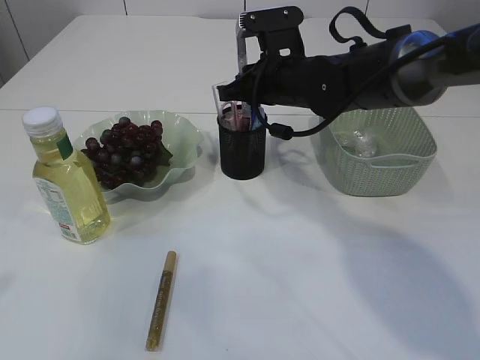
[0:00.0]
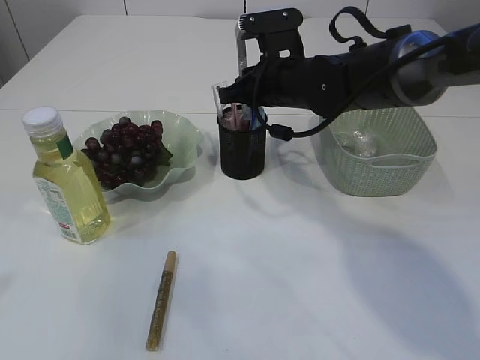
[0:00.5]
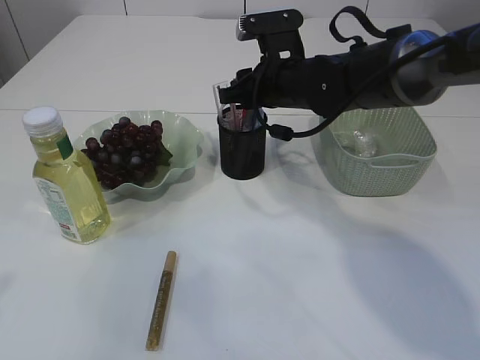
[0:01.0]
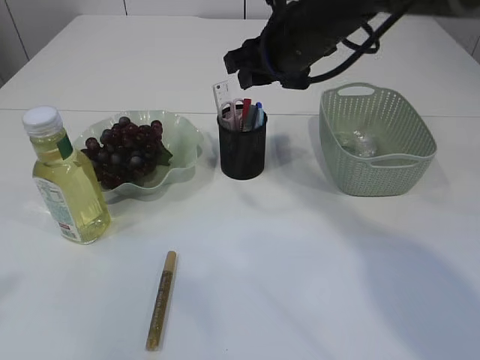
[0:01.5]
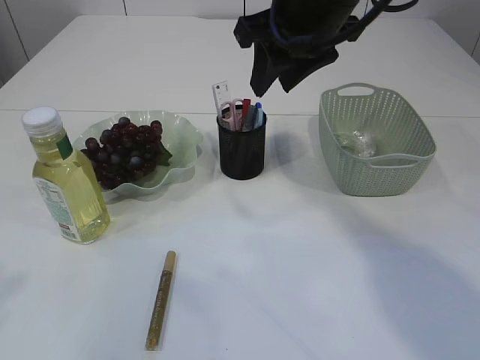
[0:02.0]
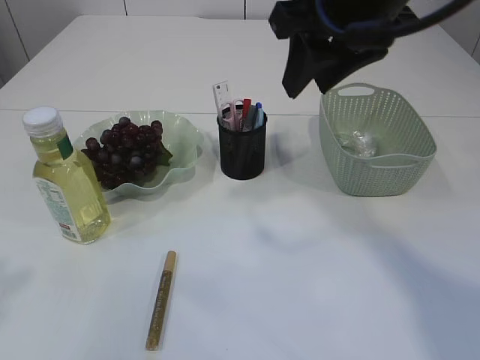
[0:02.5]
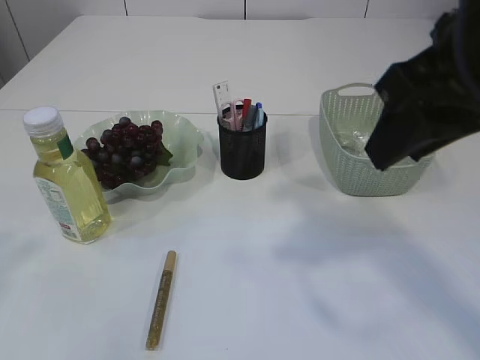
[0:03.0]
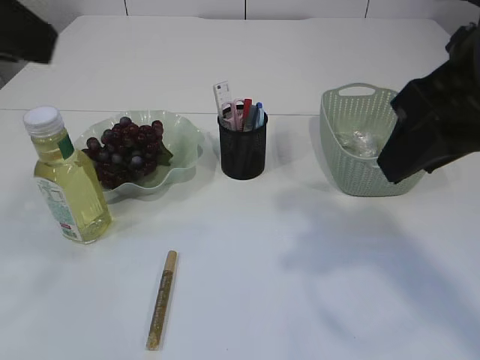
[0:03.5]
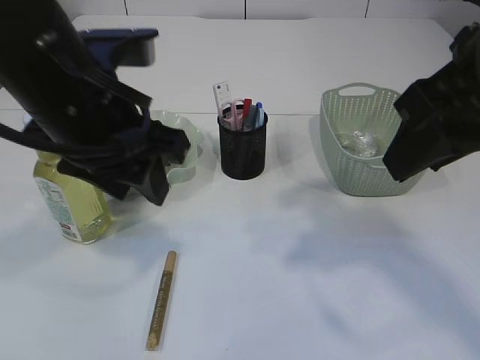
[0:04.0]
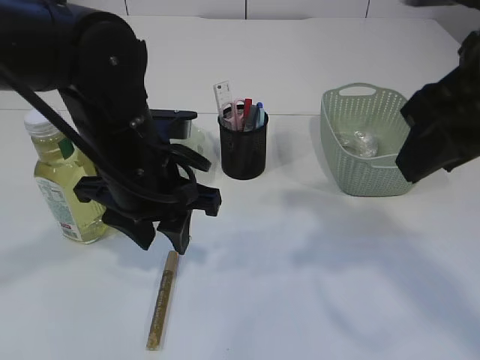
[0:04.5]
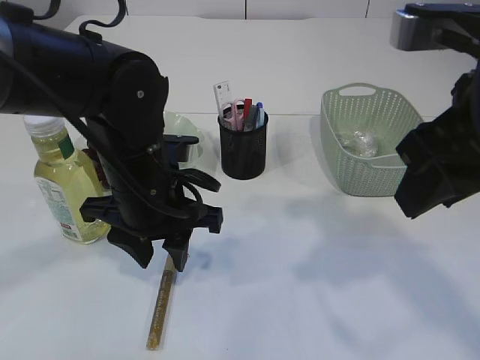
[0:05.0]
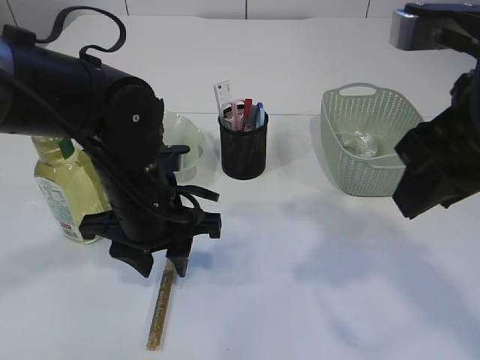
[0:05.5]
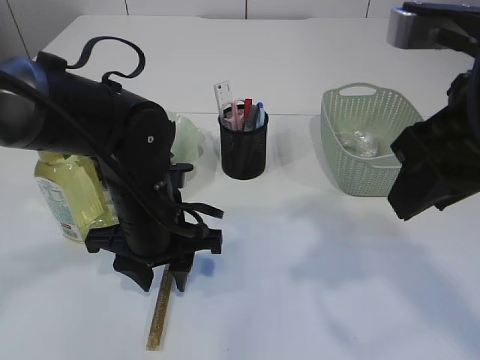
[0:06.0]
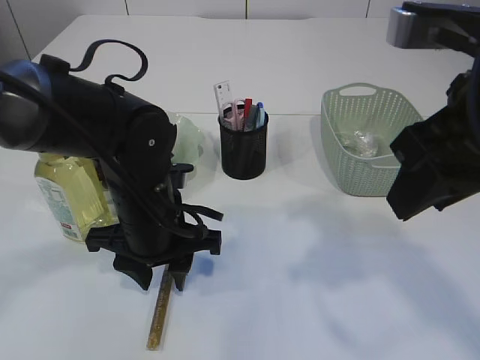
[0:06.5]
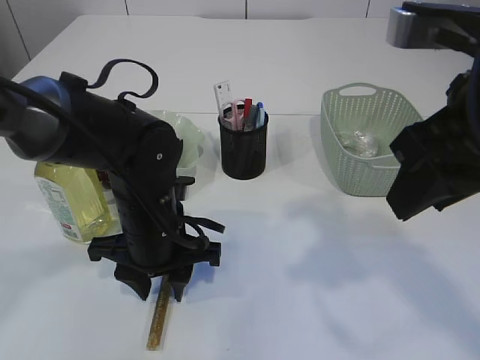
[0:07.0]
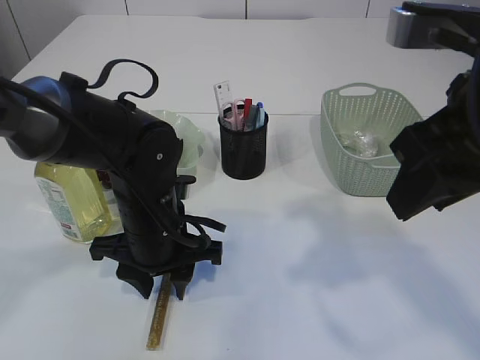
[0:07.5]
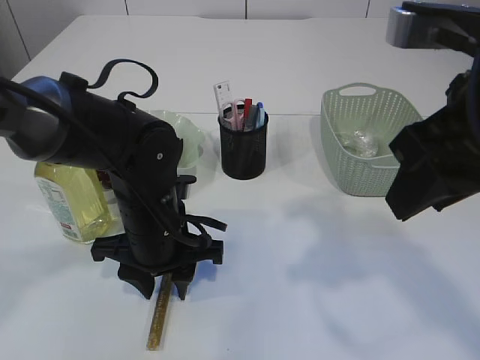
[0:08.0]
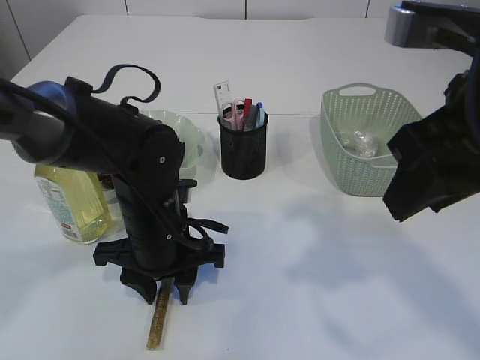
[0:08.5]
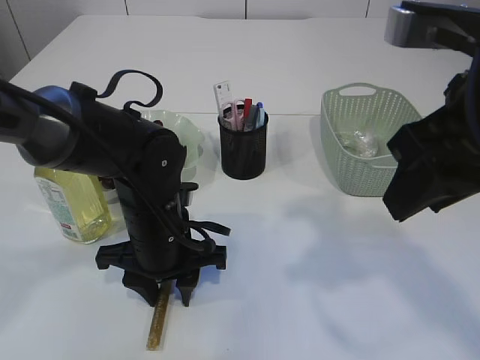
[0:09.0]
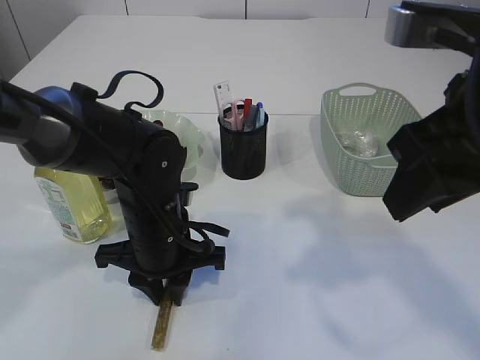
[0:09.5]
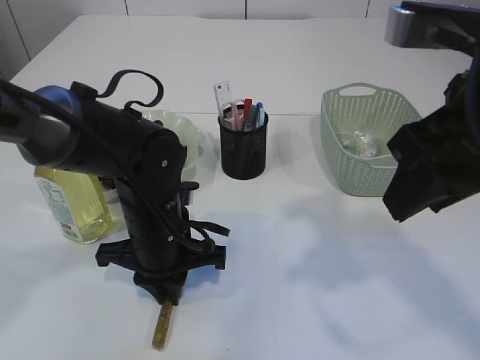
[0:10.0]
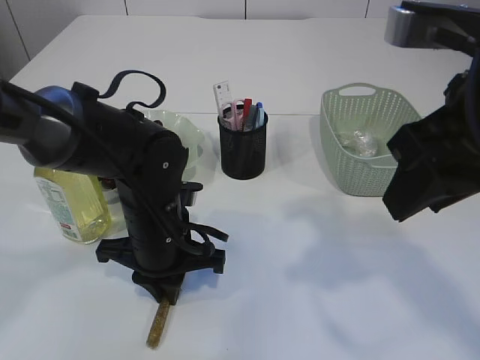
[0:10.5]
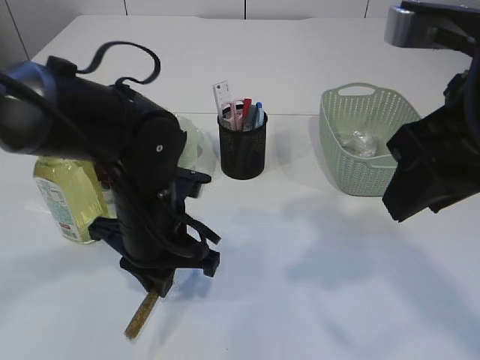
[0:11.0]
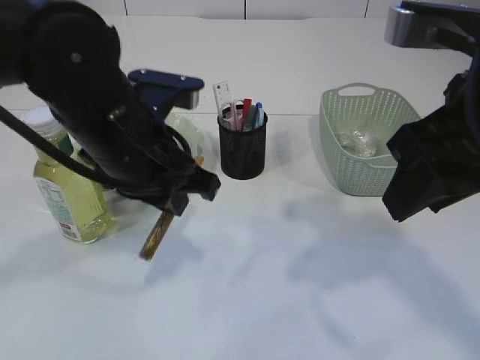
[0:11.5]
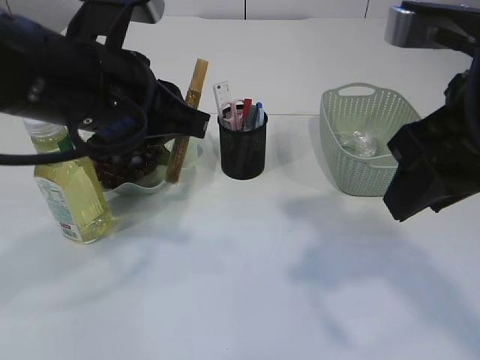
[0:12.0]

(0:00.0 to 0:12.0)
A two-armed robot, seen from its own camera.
Step, 0:01.5 - 0:11.0: pick up the yellow glue.
0:00.0 - 0:02.0: The right gripper heads upward and backward, covering about 15 cm, and opens.
0:02.0 - 0:04.0: The right gripper moves backward and to the right, some 20 cm; the left gripper heads to the right and forward, covering approximately 20 cm.
0:04.0 - 0:06.0: The left gripper shifts approximately 15 cm downward.
0:06.0 - 0:08.0: The grippers make only small movements.
0:08.0 - 0:10.0: The left gripper closes up.
0:10.0 - 0:12.0: The left gripper goes roughly 20 cm upward.

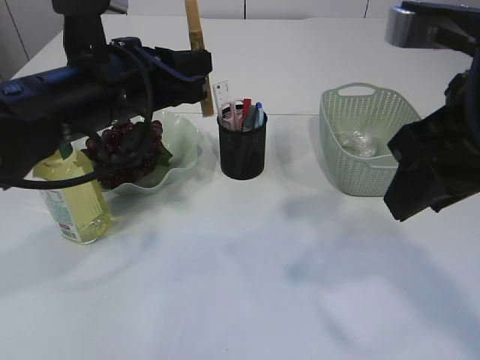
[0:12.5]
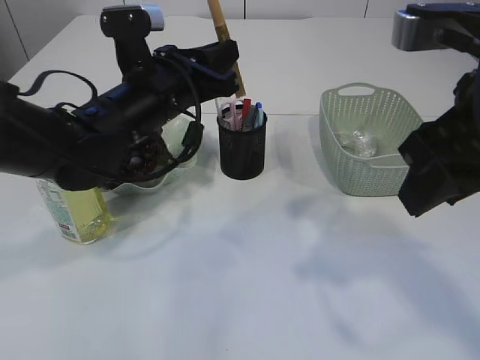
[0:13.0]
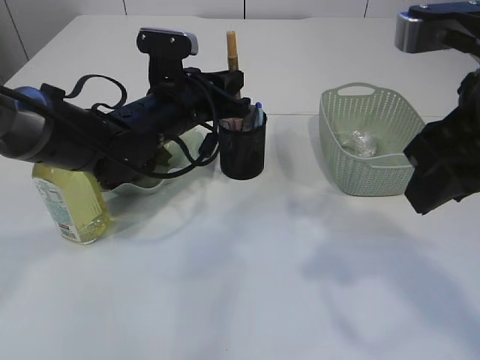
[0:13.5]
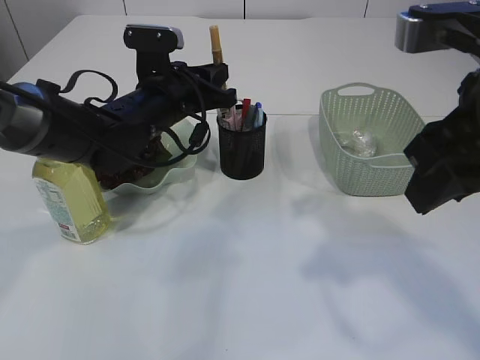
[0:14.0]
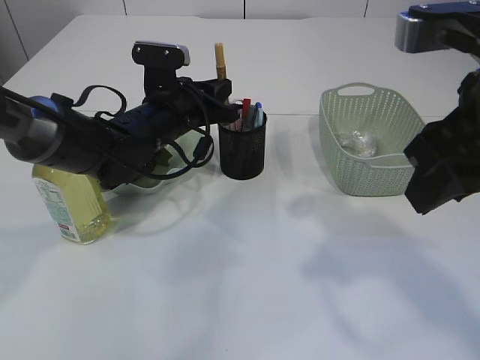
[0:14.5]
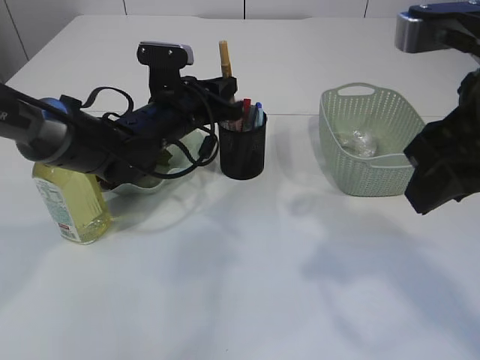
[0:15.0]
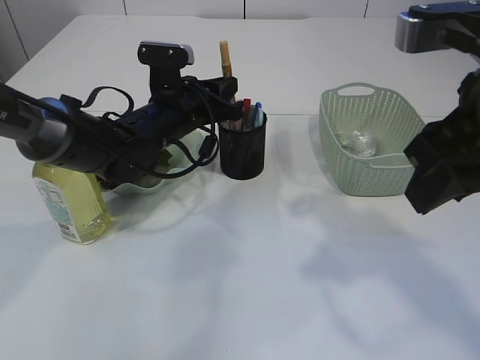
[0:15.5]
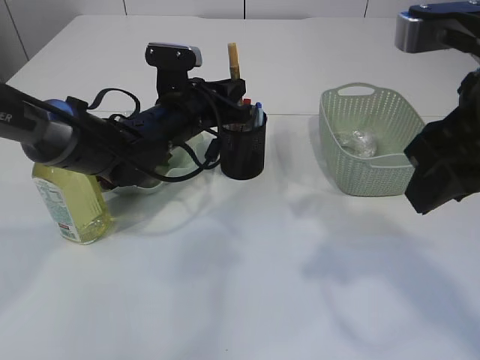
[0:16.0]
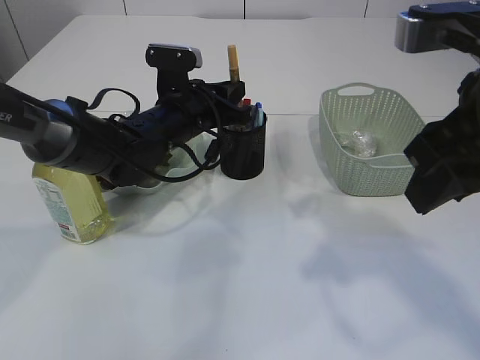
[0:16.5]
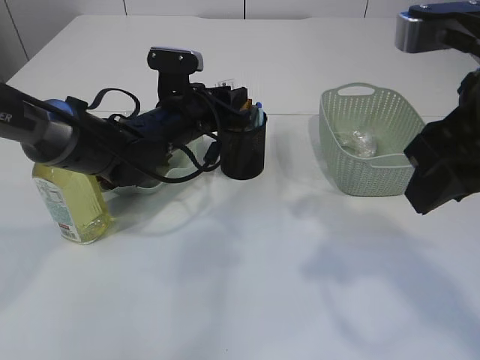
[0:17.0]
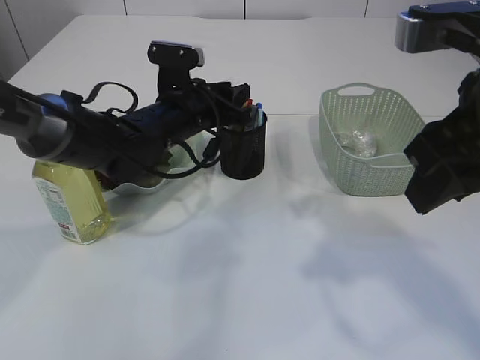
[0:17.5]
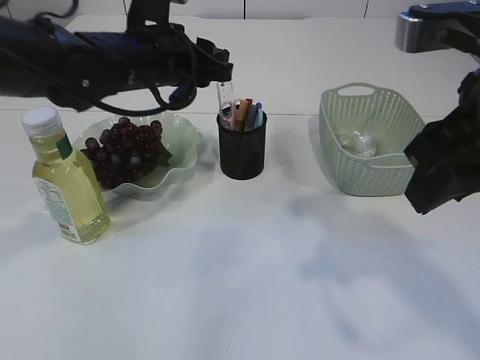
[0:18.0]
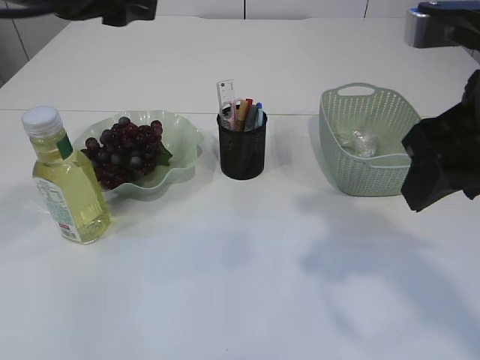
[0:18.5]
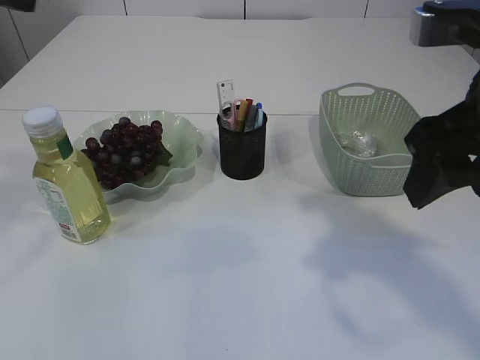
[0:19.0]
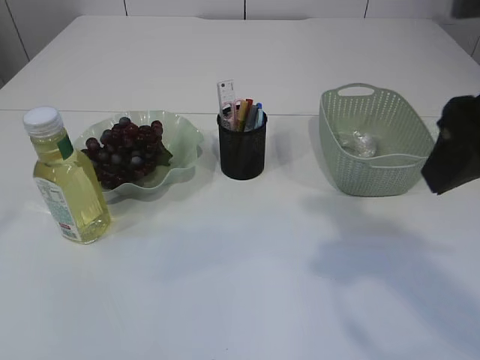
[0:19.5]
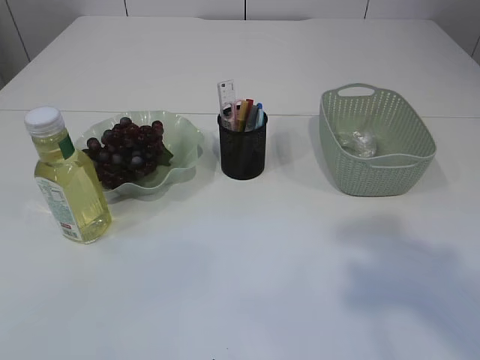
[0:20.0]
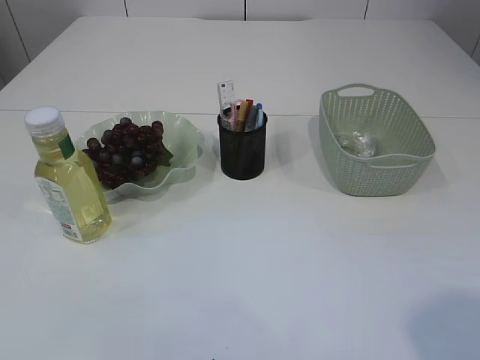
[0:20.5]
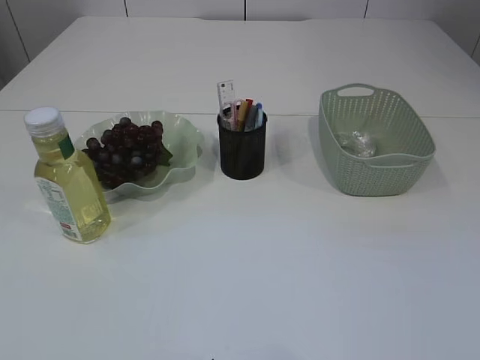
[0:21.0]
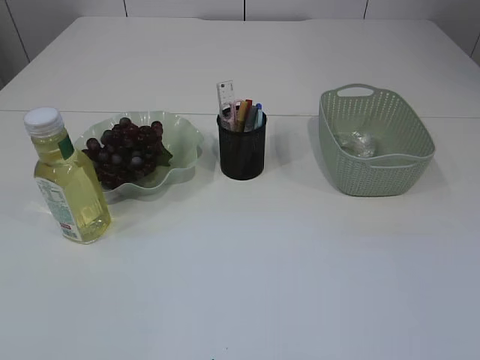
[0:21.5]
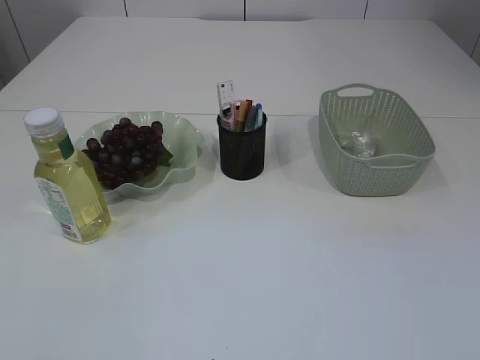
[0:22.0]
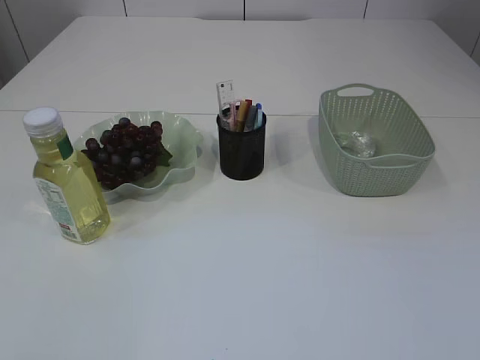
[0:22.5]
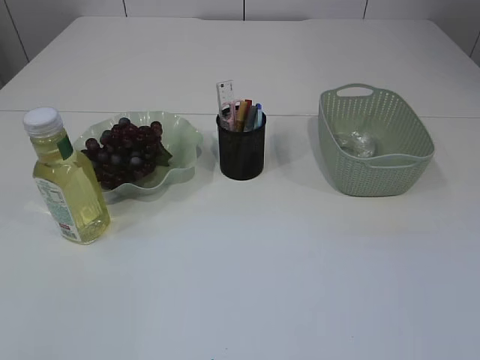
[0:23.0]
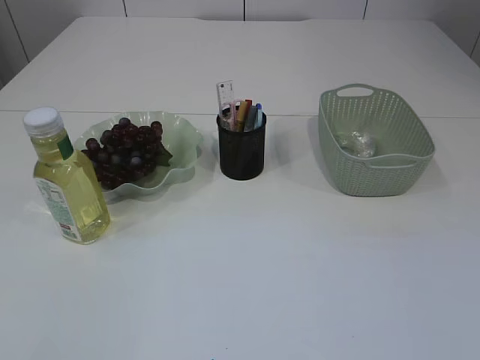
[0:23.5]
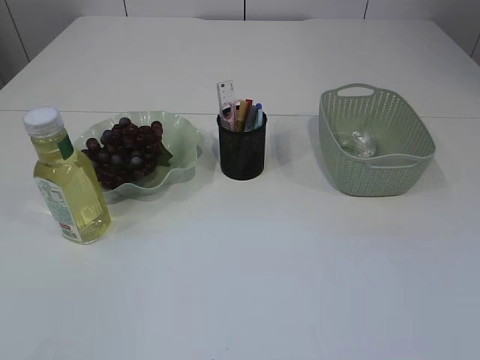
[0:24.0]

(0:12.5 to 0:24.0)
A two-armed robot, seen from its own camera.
Step, 0:12.5 - 0:18.0: place the yellow glue into the pen holder.
0:12.5 - 0:14.5: The left gripper heads forward and downward, covering about 15 cm.
0:14.5 - 0:16.5: The grippers move only a little.
0:16.5 - 0:18.5: The left gripper shifts approximately 20 cm upward and backward, and opens up.
0:18.5 - 0:20.0: The right gripper heads backward and upward, covering roughly 10 cm, while the left gripper shifts approximately 35 cm backward, to the left and upward, and opens up.

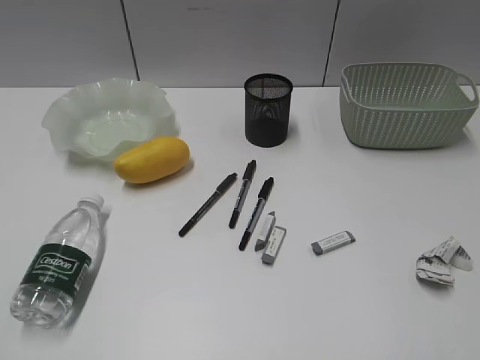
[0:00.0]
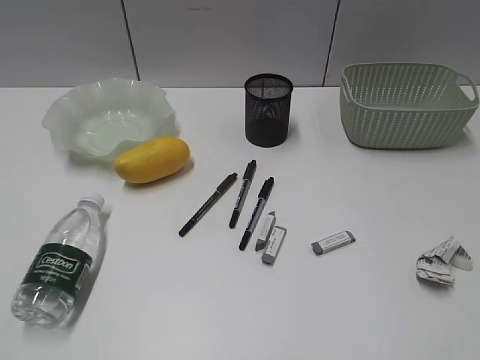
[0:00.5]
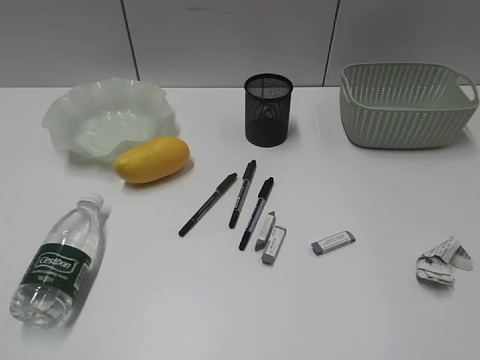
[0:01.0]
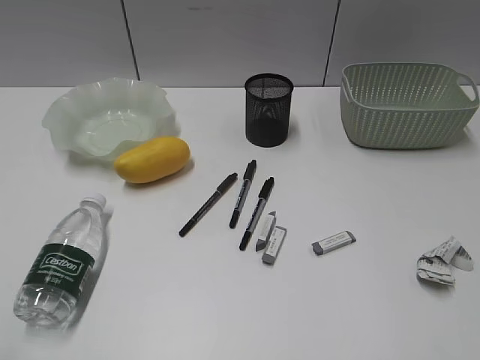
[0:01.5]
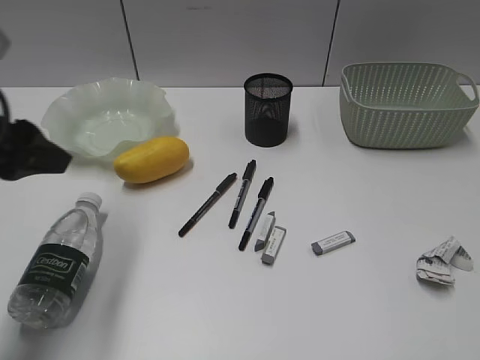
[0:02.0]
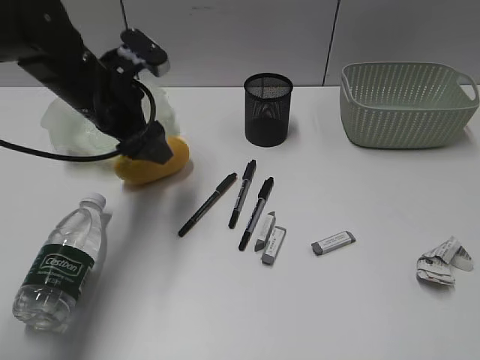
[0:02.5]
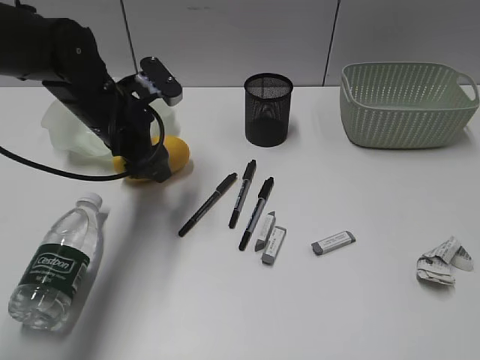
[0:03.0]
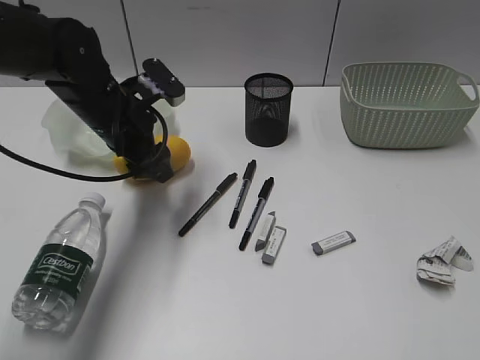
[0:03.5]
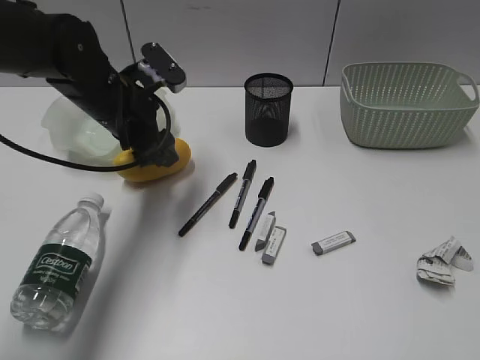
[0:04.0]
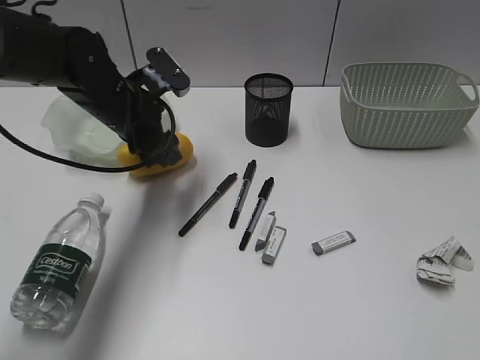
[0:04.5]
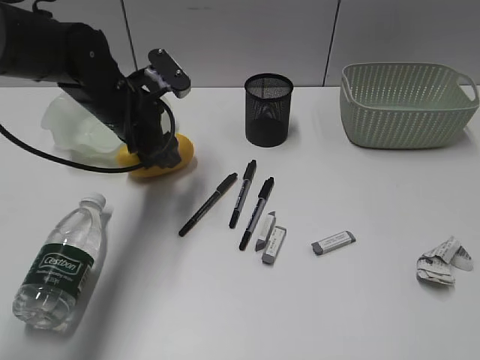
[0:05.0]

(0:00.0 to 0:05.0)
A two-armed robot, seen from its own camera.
0:02.5 - 0:05.0: The left gripper ends up some 5 cm from where it was.
